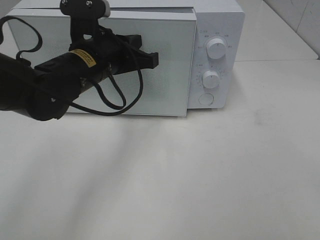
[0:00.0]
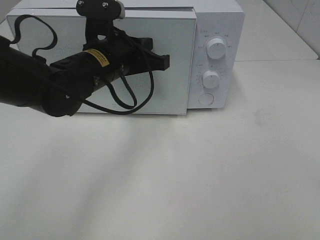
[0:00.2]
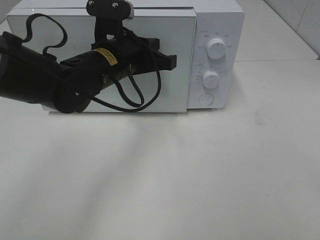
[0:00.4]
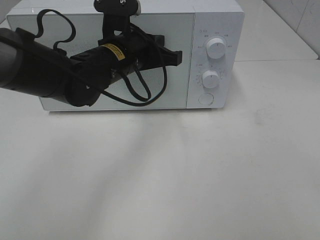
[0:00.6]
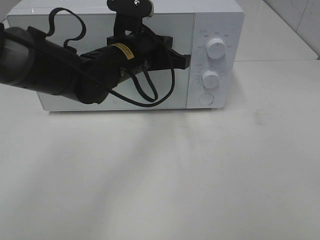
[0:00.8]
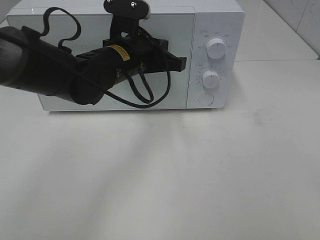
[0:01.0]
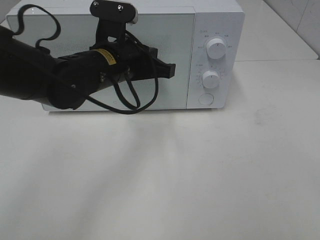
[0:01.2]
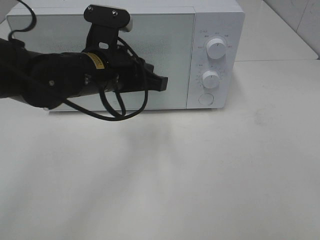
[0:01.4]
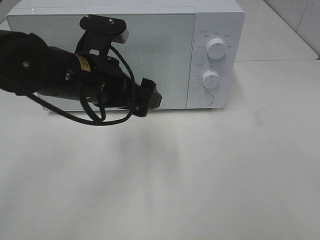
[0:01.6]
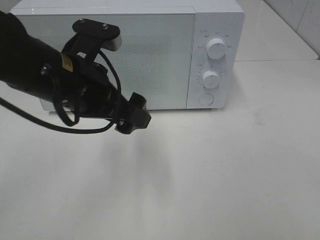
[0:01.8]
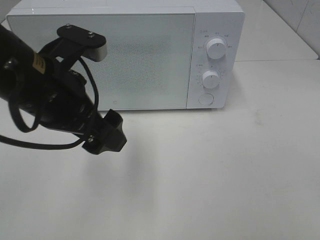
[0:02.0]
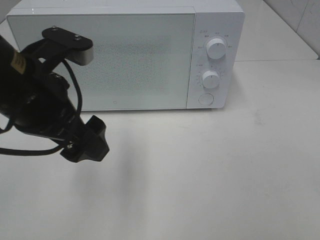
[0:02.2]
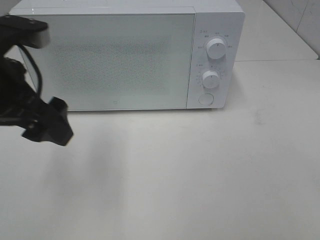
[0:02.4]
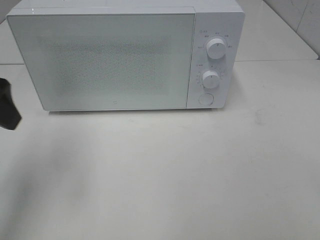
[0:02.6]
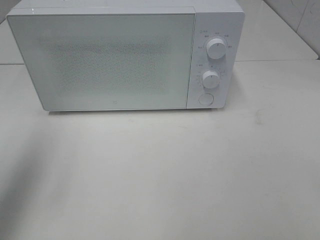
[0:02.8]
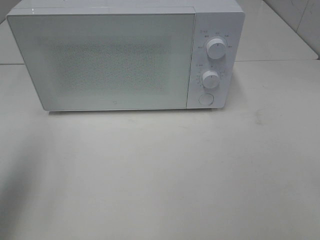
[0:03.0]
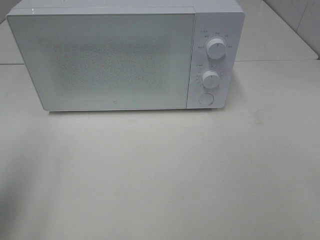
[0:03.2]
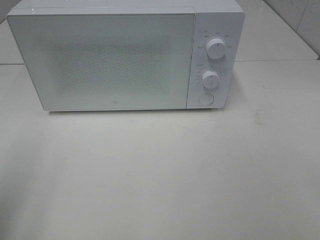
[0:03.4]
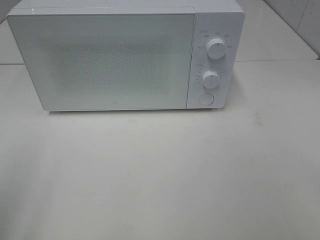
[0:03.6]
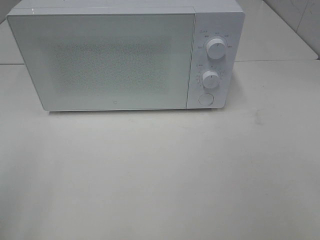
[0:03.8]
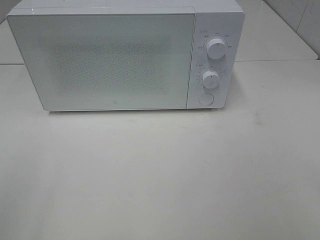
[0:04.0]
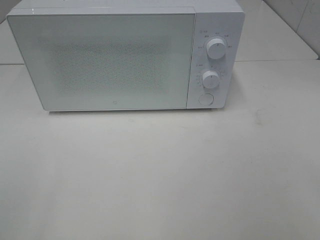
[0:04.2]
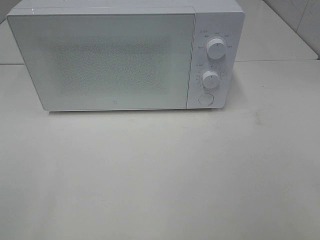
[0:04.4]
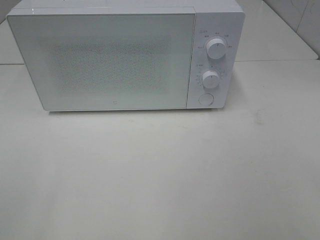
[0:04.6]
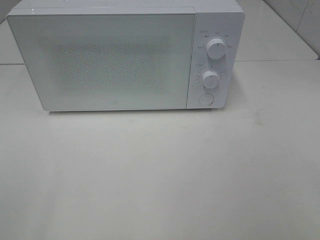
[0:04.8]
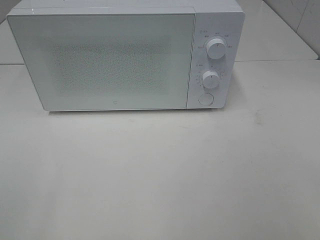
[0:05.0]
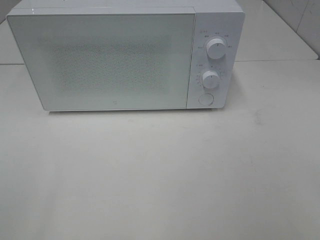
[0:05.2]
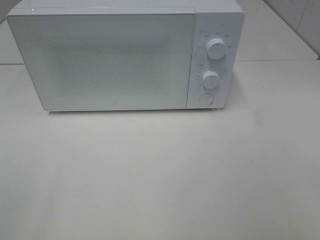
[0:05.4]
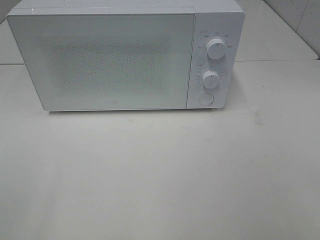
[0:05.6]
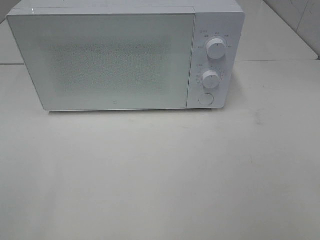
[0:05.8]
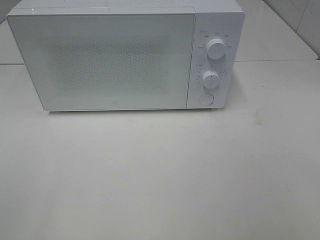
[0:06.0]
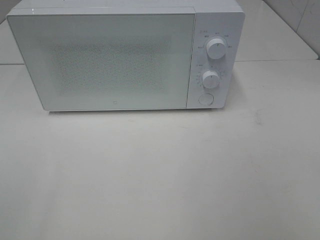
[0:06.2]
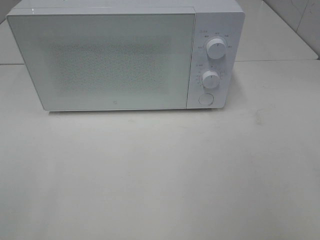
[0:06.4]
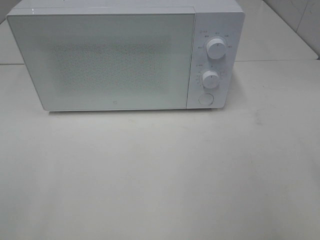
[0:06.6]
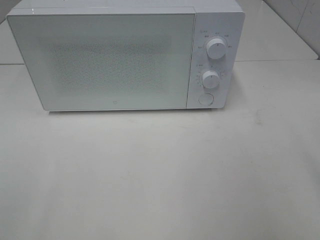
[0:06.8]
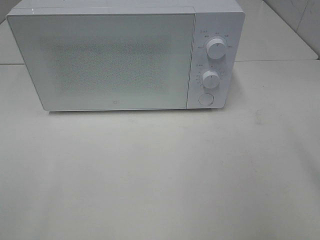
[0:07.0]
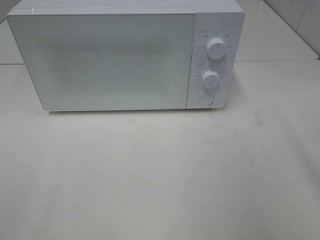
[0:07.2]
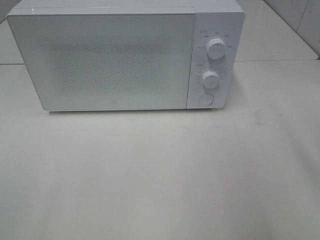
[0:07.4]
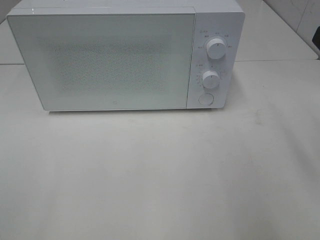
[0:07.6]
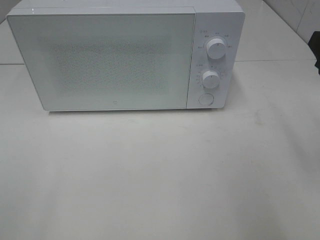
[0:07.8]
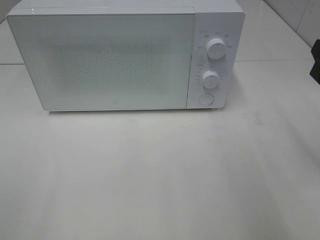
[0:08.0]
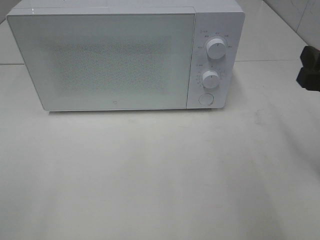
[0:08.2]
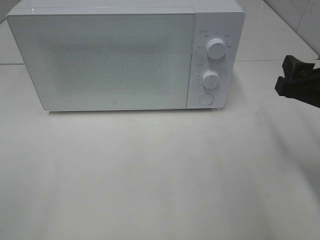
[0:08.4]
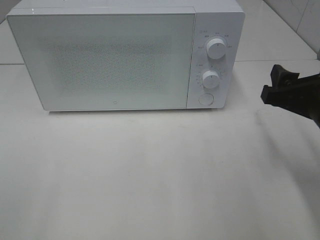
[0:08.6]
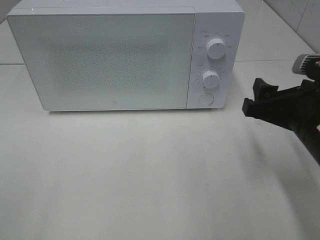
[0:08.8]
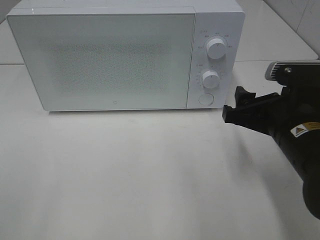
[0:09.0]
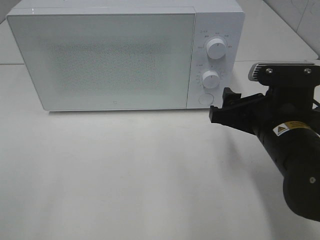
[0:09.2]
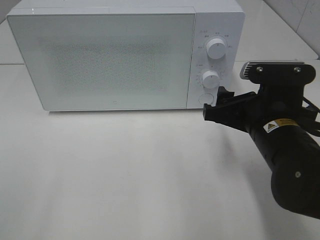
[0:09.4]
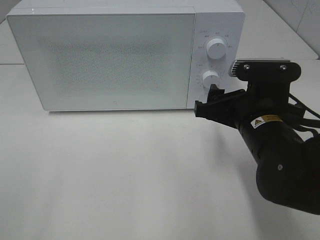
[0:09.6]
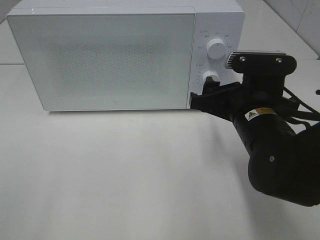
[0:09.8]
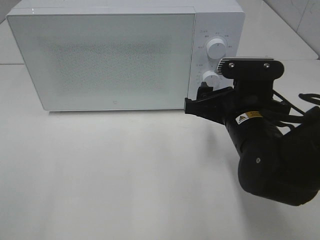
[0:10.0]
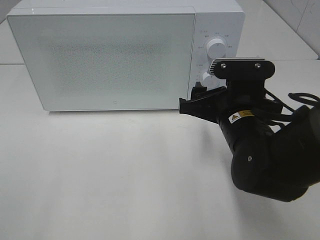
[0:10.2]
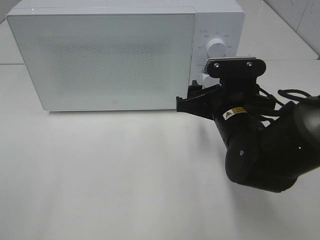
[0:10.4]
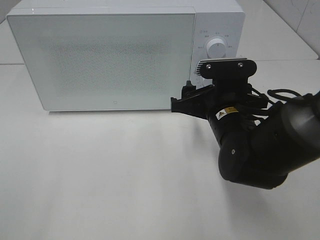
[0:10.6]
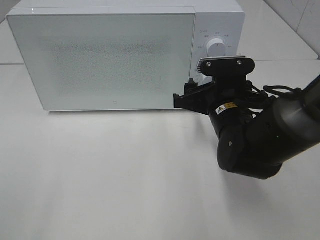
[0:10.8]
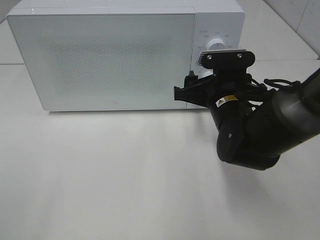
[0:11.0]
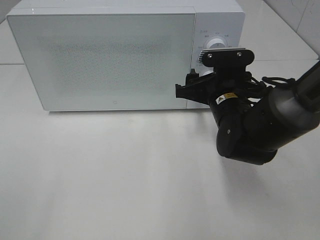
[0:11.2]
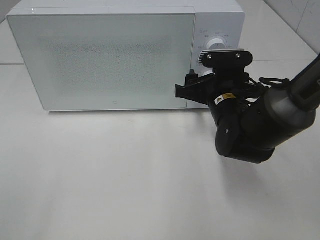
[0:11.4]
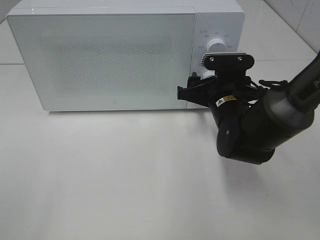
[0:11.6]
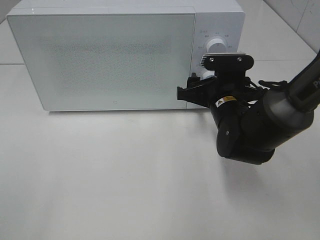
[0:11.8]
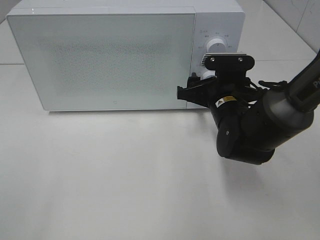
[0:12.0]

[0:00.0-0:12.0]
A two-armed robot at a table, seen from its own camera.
Task of the whole recording: Heat the burger.
0:00.0 to 0:01.6: The left gripper travels backward by about 5 cm, and opens.
0:01.6 to 0:03.0: The left gripper moves to the left, upward and backward, some 25 cm.
0:03.0 to 0:04.4: The left gripper travels backward by about 20 cm.
0:04.4 to 0:06.0: Neither gripper changes place.
0:07.6 to 0:09.0: The right gripper travels downward and to the left by some 15 cm.
0:09.0 to 0:10.4: The right gripper travels to the left and forward by approximately 10 cm.
0:10.4 to 0:12.0: The right gripper moves forward, about 5 cm.

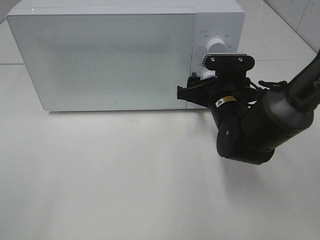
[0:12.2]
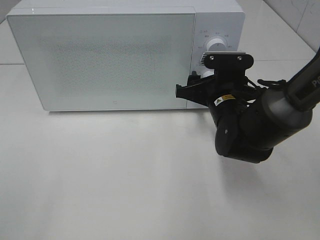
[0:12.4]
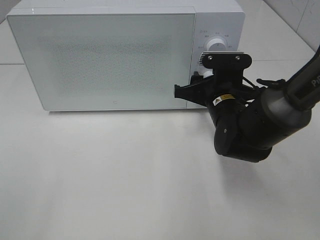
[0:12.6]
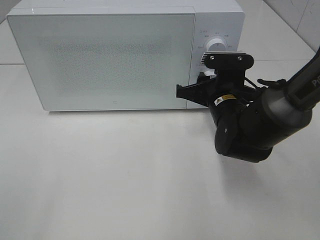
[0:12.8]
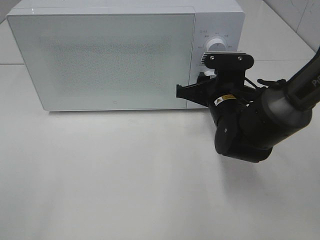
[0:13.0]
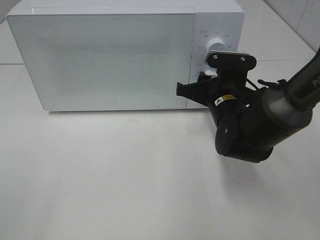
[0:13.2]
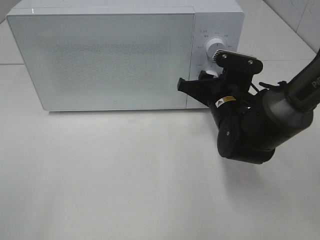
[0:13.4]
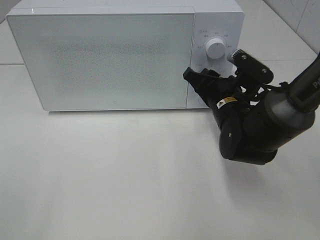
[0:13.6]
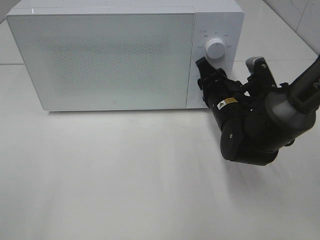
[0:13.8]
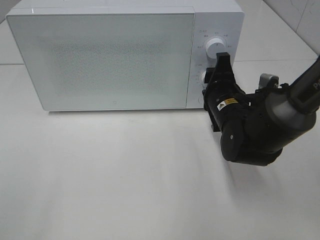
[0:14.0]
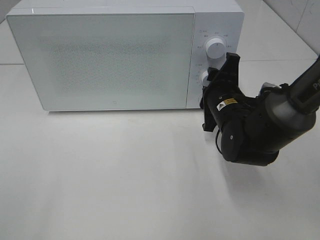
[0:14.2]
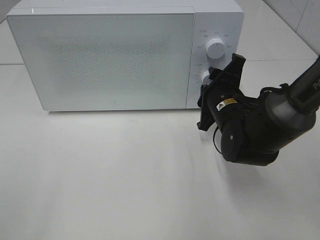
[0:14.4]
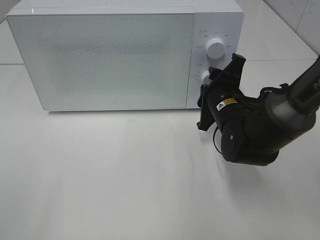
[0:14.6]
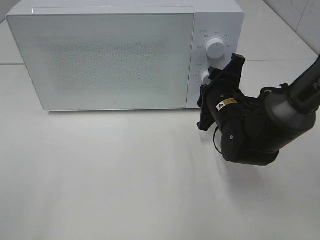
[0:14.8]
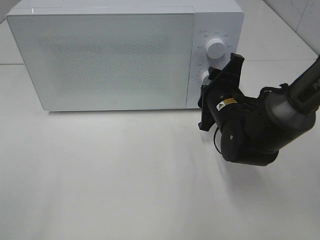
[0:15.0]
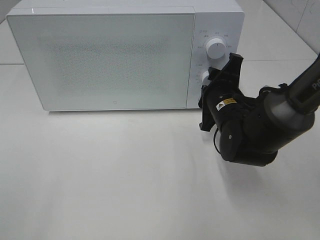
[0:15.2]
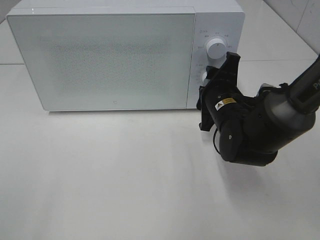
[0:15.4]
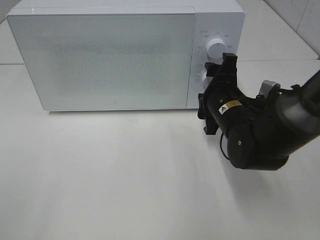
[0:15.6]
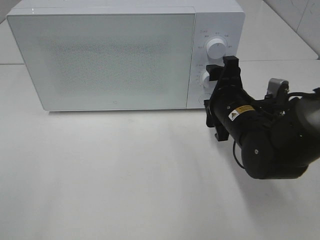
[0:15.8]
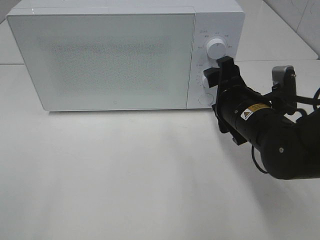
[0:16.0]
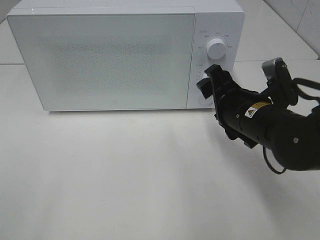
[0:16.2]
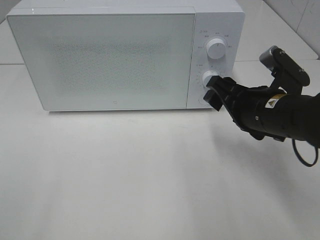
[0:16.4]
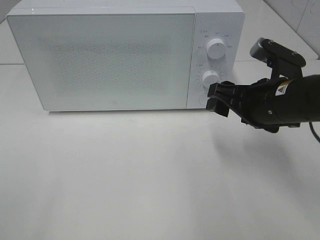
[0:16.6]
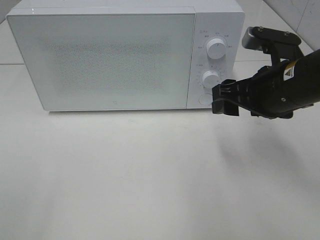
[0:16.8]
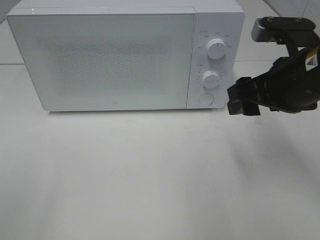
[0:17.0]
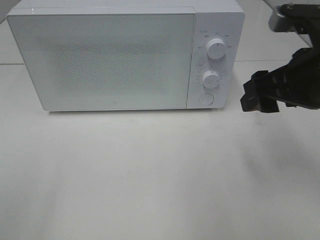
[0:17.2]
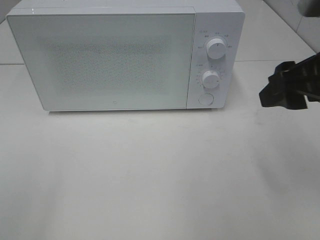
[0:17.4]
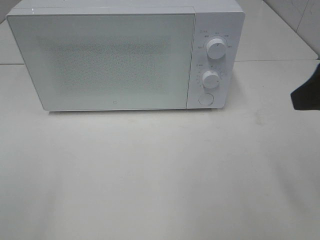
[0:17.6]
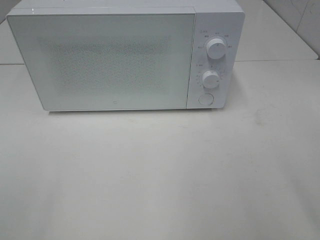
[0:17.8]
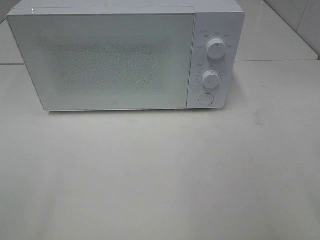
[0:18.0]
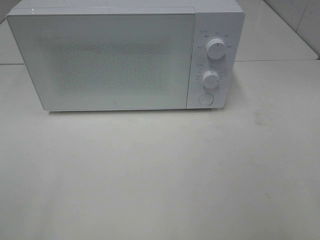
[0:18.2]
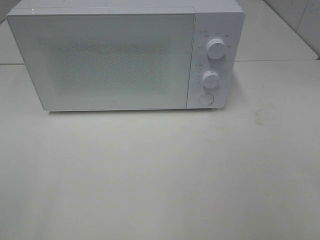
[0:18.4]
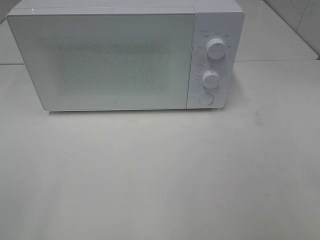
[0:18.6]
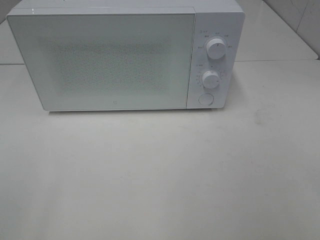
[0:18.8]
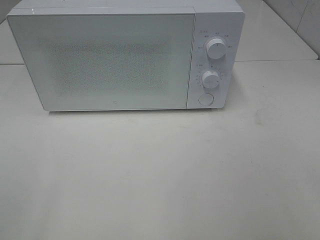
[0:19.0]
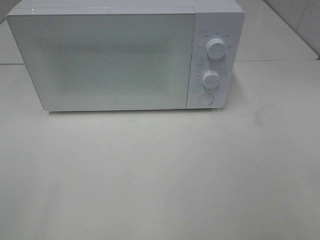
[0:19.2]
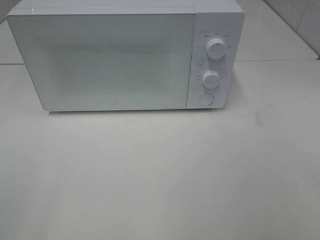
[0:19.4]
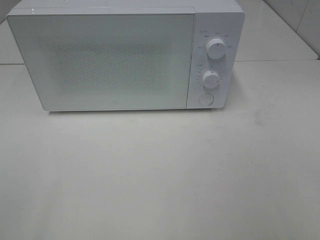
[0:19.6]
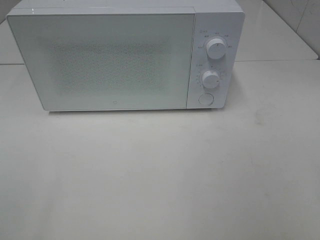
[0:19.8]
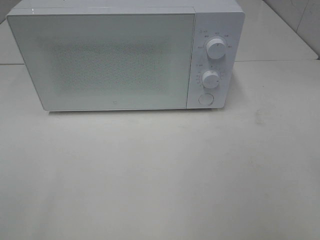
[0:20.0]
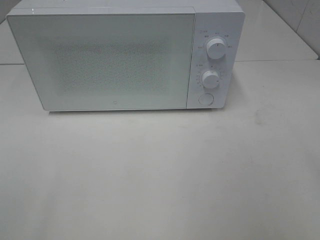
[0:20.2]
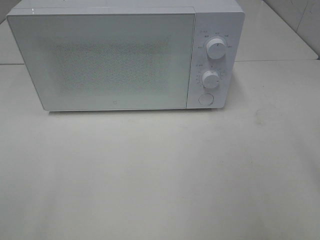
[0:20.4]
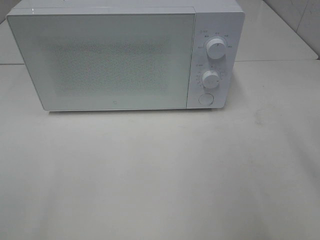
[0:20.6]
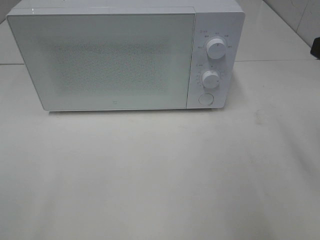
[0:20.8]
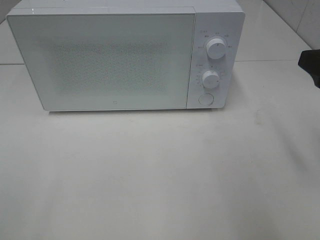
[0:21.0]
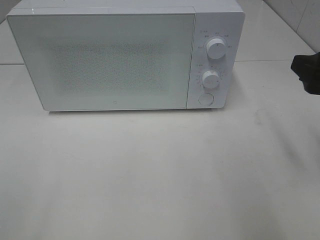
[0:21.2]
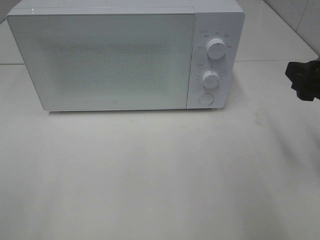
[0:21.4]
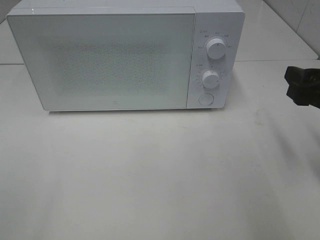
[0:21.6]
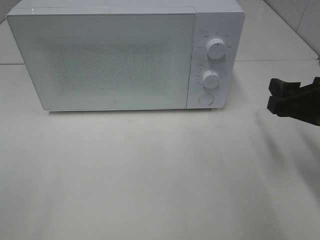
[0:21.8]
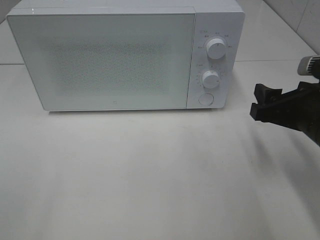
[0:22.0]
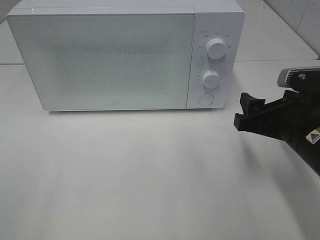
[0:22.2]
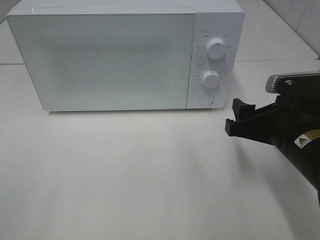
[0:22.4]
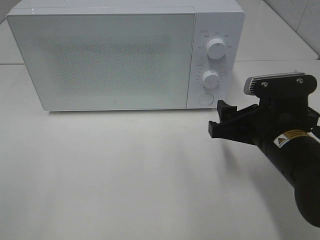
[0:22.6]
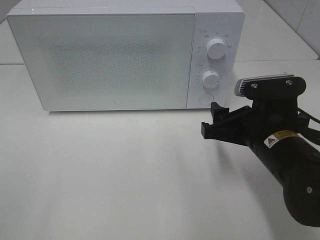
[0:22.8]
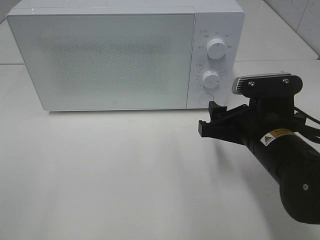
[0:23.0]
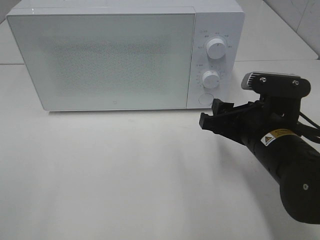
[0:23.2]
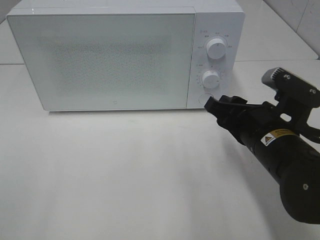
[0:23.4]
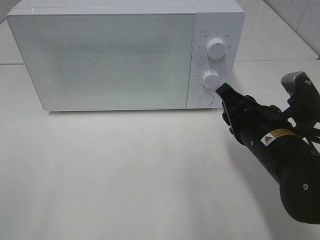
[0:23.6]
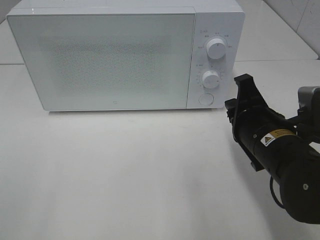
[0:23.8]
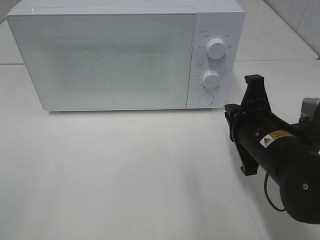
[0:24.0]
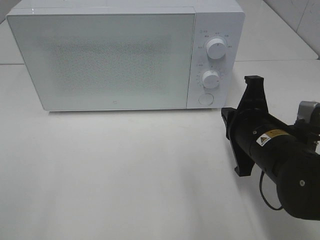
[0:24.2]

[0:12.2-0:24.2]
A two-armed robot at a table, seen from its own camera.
Task of the whole recording: Heat the burger.
Step, 0:12.2 to 0:15.4: Right hand: twist timer button.
0:12.2 to 0:13.8: The right gripper closes.
0:15.2 to 0:16.6: The right gripper shifts approximately 10 cm upward and backward, and opens its fingers.
0:16.6 to 0:18.2: The right gripper heads backward, upward and to the right, covering approximately 25 cm.
0:19.8 to 0:21.2: The right gripper is displaced forward and downward by approximately 15 cm.
0:21.2 to 0:22.6: The right gripper travels to the left and downward by some 15 cm.
0:22.6 to 0:24.2: The right gripper closes.
